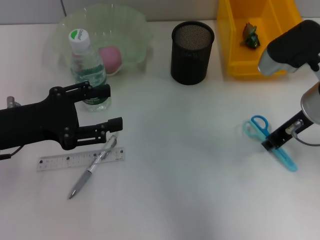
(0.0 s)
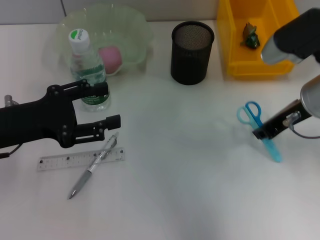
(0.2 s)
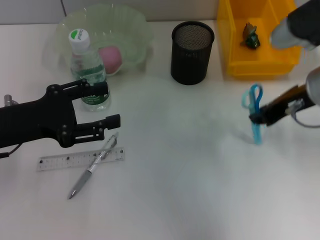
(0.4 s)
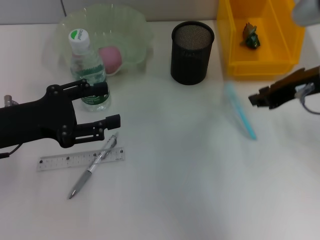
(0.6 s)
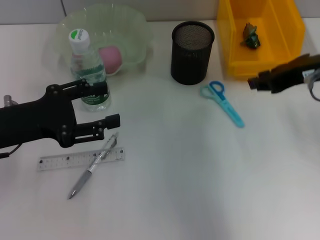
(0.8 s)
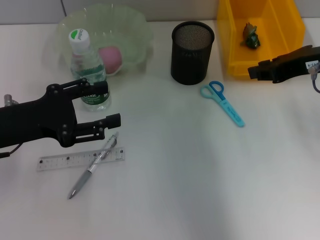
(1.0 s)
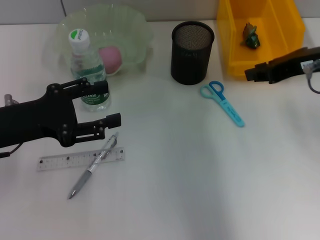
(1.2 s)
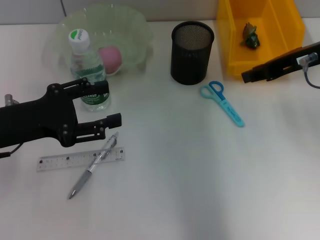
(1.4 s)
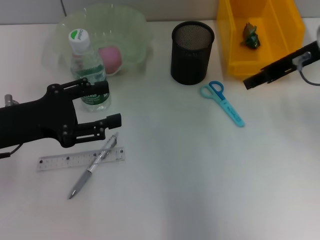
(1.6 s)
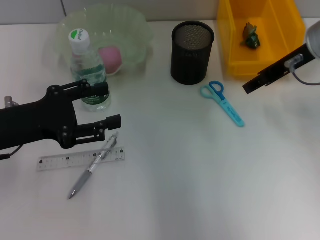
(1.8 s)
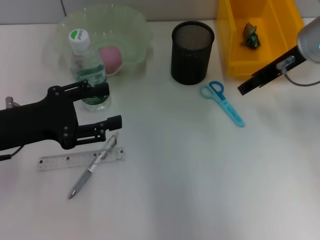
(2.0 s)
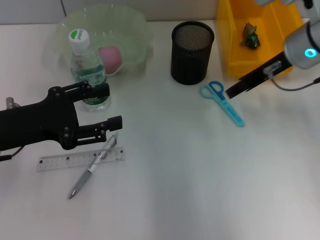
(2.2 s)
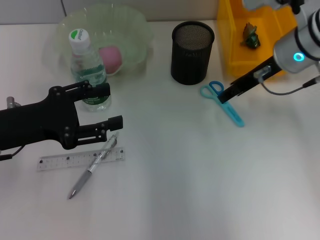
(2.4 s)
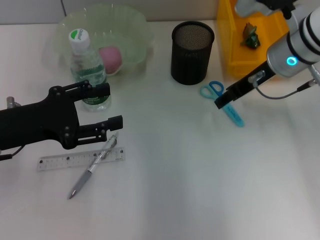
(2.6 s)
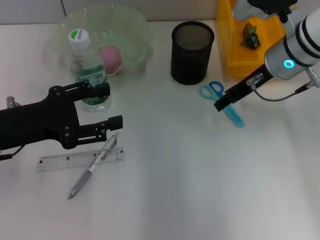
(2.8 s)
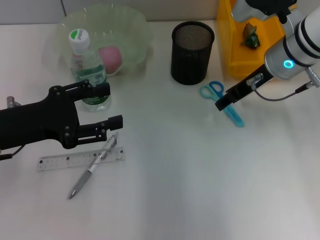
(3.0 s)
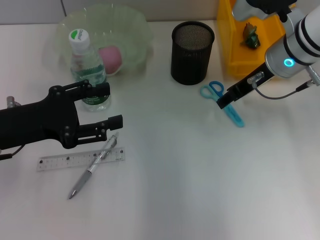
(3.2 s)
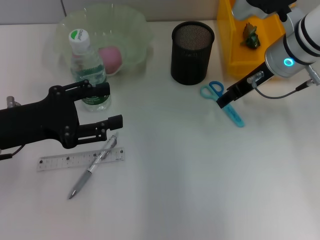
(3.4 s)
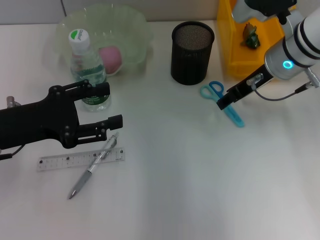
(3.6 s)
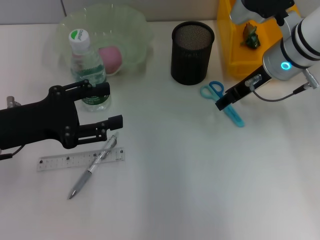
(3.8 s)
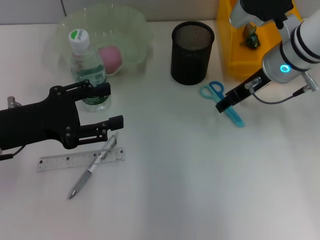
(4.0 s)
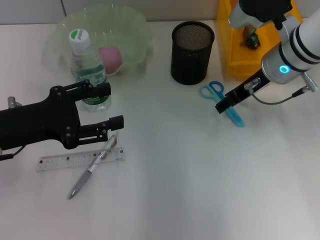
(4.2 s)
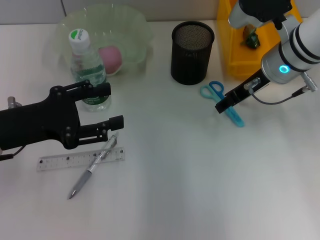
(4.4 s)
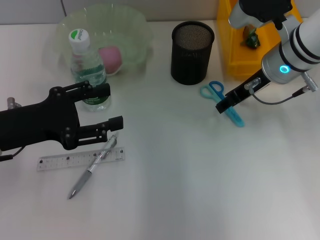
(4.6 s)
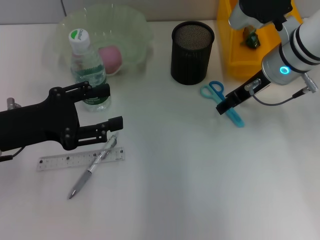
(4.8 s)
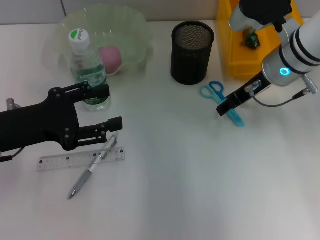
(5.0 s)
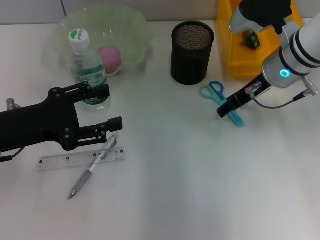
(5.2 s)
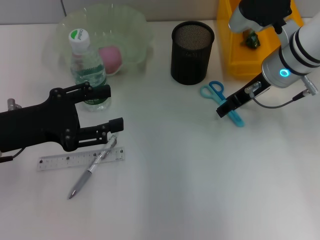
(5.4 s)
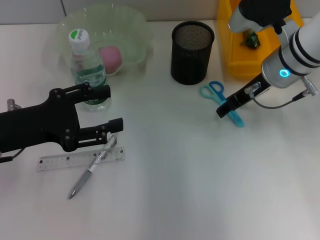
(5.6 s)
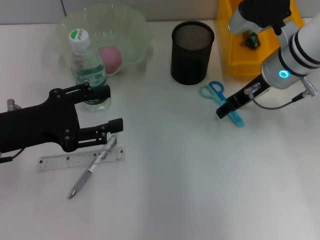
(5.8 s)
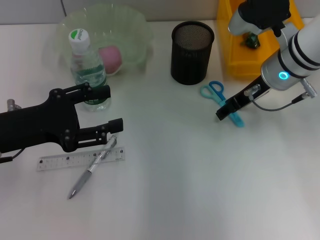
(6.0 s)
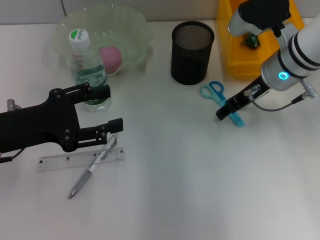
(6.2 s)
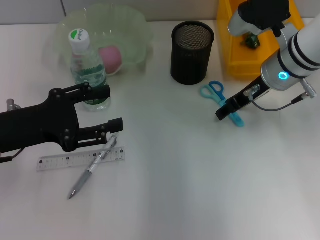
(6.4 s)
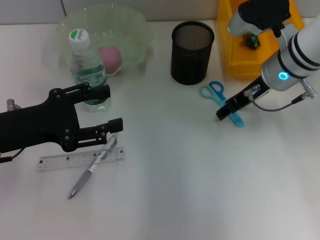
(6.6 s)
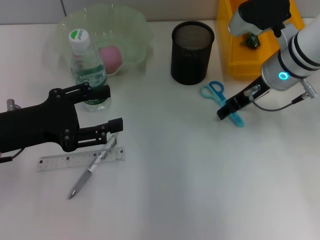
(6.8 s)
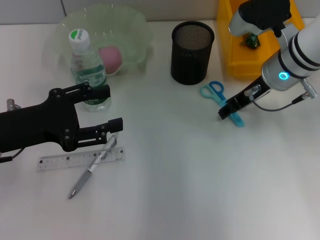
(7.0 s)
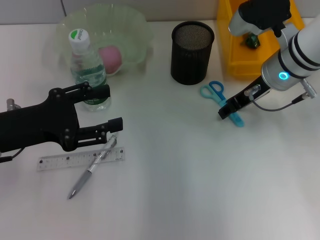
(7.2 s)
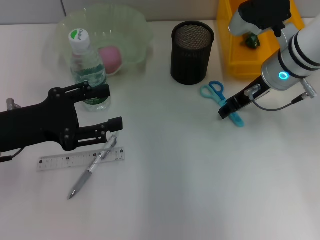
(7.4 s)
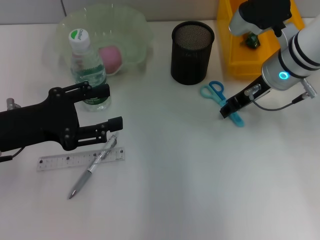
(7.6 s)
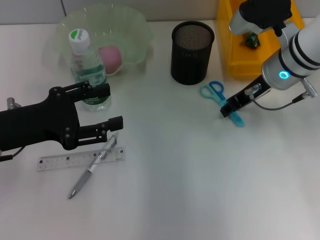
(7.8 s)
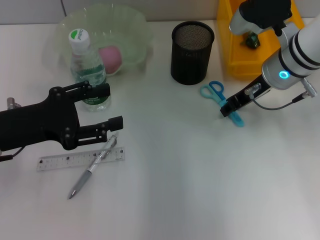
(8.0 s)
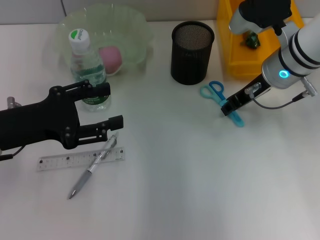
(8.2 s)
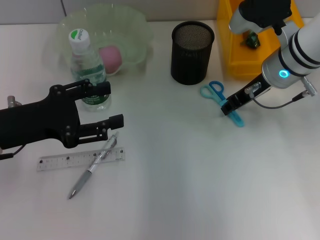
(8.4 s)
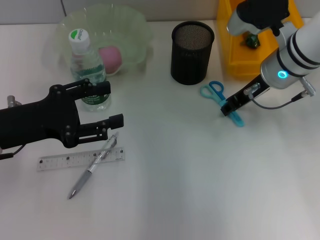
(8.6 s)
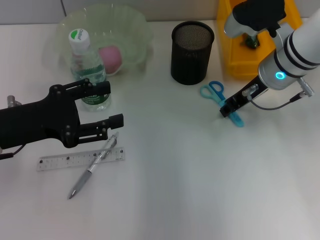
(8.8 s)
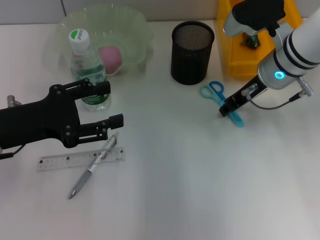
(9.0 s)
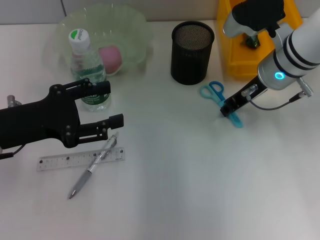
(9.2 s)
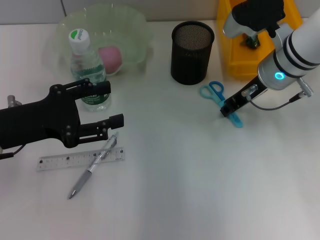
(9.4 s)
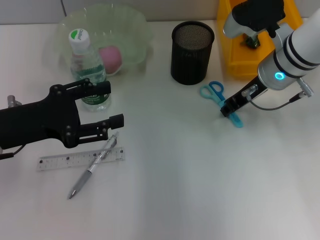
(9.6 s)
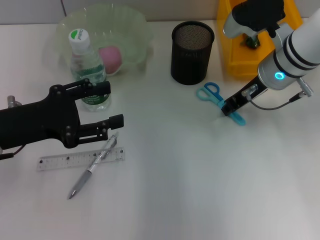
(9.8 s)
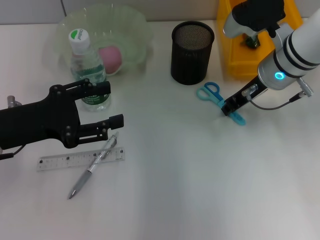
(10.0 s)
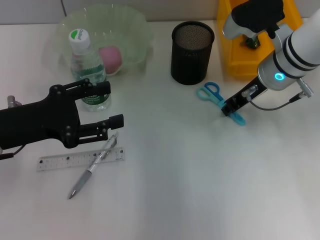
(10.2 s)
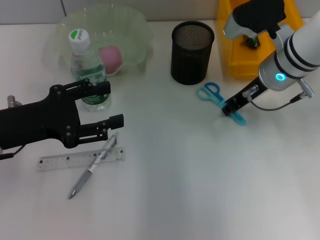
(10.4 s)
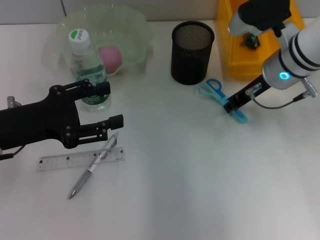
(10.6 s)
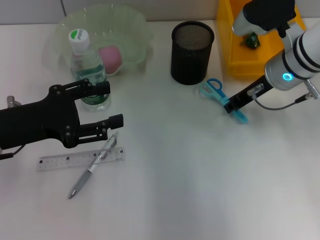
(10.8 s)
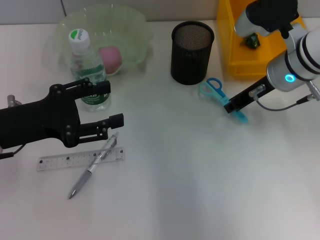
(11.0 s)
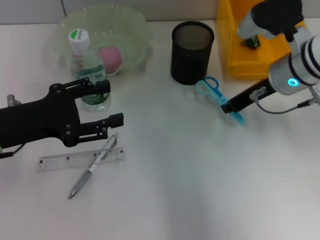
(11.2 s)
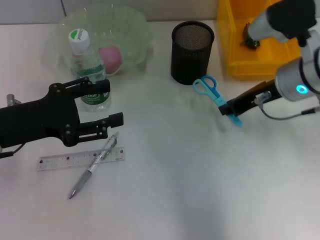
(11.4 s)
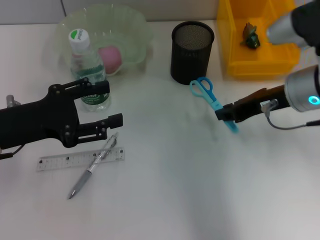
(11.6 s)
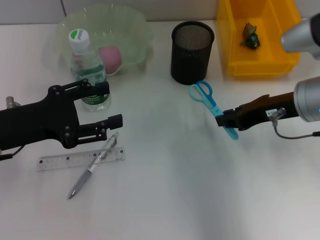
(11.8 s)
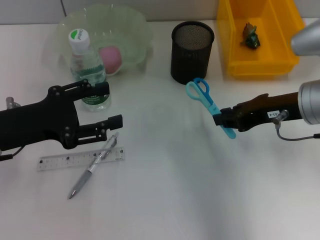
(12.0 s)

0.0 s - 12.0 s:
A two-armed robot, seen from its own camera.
Step, 0.0 s - 9.8 s: Grab the blue scissors with the right hand.
0.0 s - 1.6 s: The right gripper heads upward, covering roughly 5 cm.
1.6 s - 3.0 s: The right gripper moves downward and to the left, about 10 cm, and opens.
3.0 s - 4.4 s: Both grippers stay put.
4.4 s - 10.4 s: Both grippers stay put.
10.4 s - 12.0 s: The right gripper shifts roughly 10 cm backward.

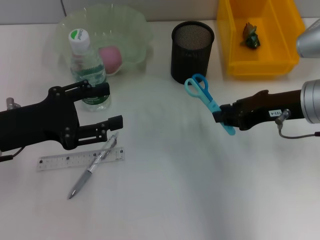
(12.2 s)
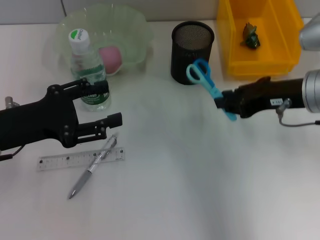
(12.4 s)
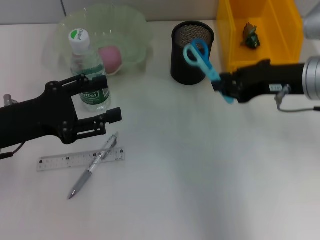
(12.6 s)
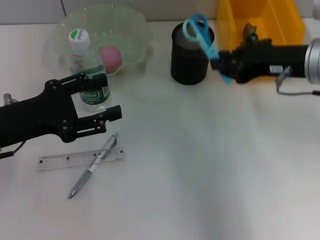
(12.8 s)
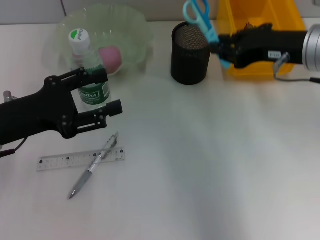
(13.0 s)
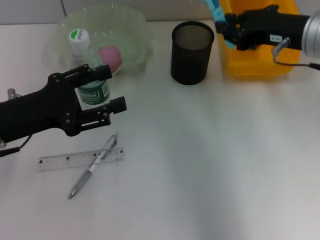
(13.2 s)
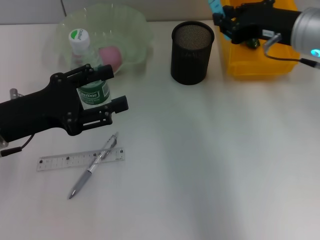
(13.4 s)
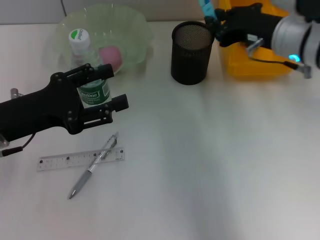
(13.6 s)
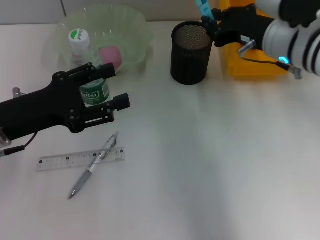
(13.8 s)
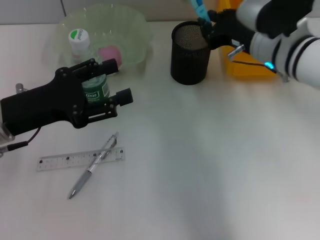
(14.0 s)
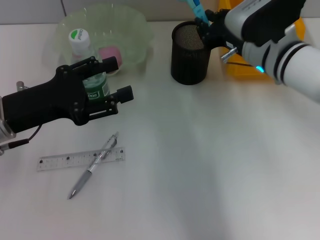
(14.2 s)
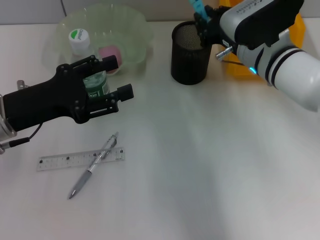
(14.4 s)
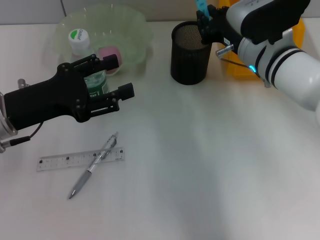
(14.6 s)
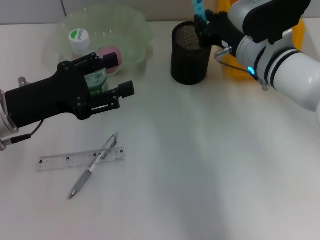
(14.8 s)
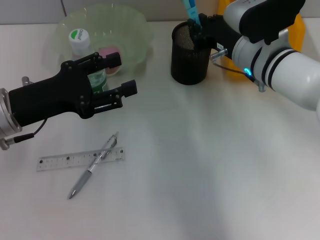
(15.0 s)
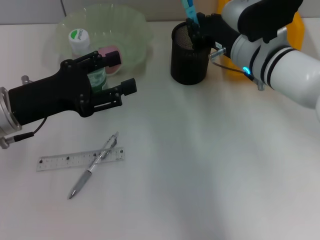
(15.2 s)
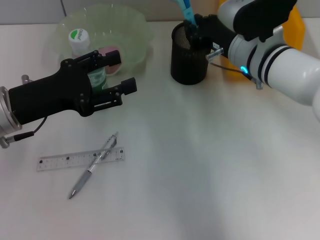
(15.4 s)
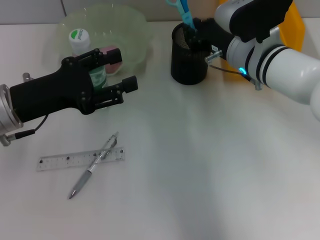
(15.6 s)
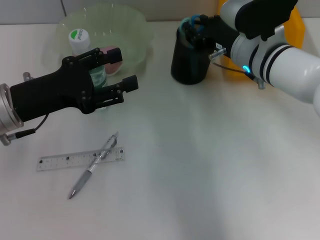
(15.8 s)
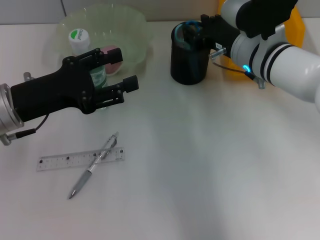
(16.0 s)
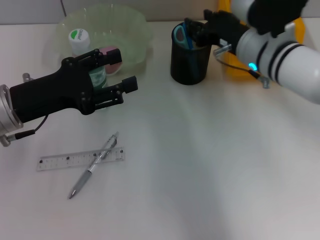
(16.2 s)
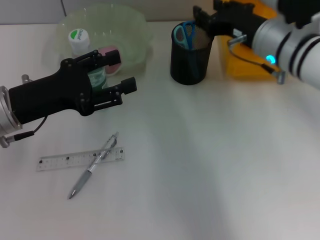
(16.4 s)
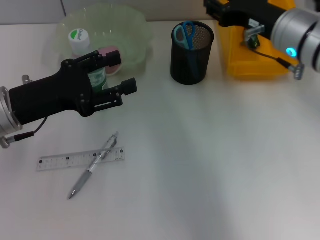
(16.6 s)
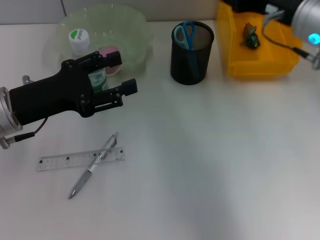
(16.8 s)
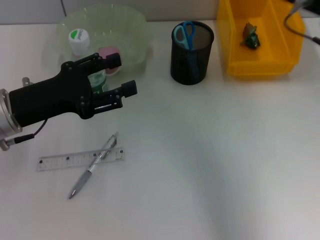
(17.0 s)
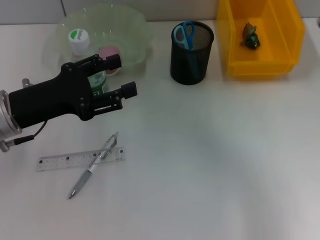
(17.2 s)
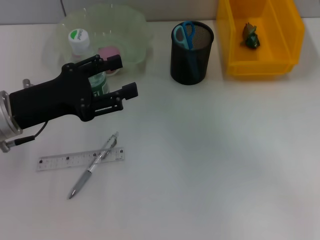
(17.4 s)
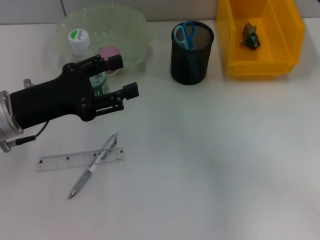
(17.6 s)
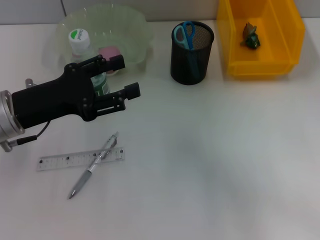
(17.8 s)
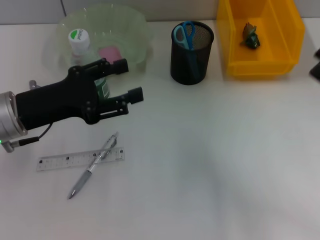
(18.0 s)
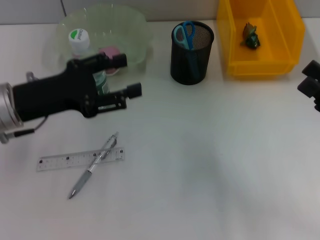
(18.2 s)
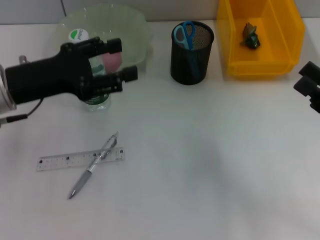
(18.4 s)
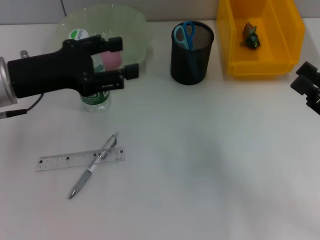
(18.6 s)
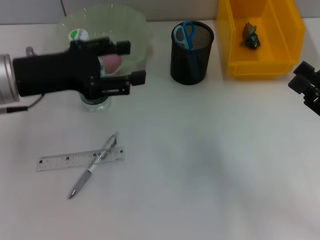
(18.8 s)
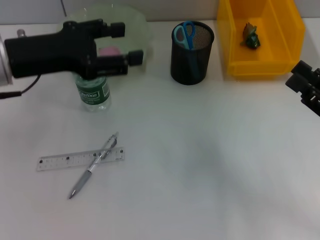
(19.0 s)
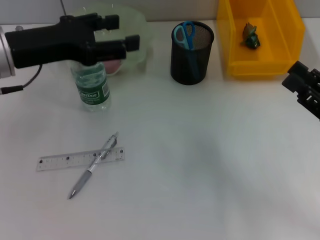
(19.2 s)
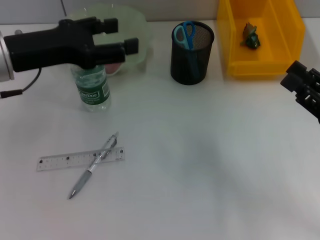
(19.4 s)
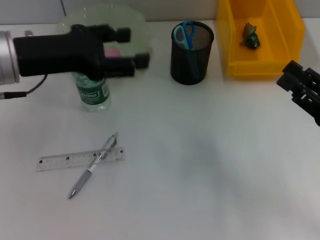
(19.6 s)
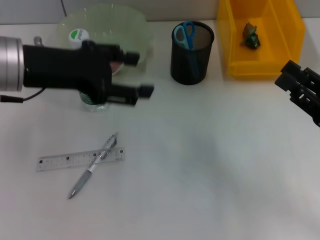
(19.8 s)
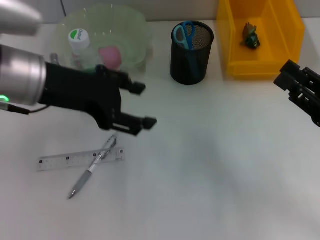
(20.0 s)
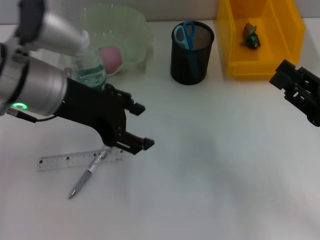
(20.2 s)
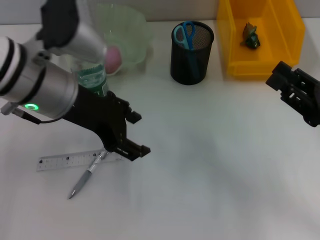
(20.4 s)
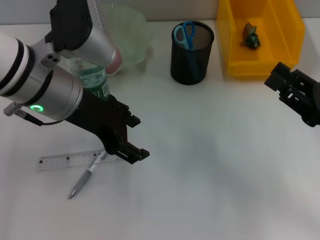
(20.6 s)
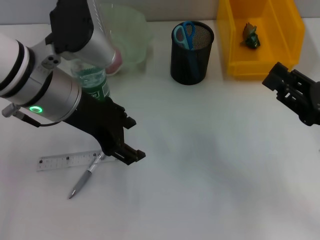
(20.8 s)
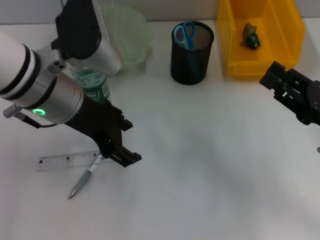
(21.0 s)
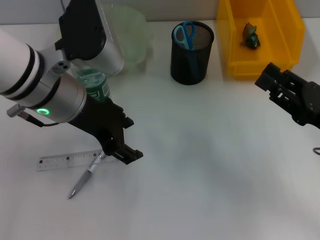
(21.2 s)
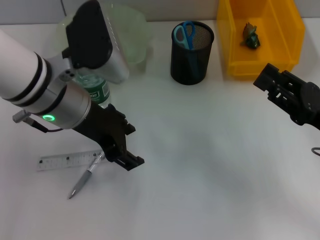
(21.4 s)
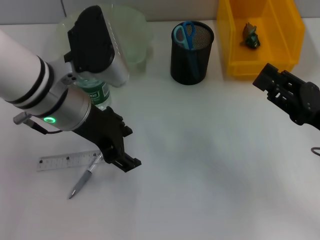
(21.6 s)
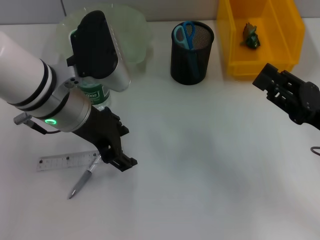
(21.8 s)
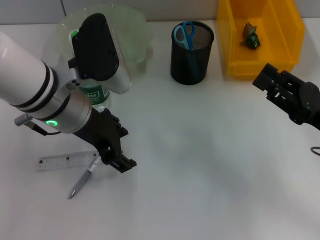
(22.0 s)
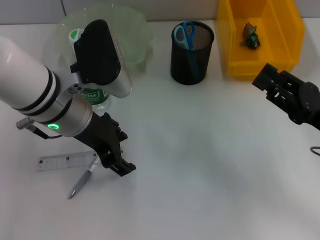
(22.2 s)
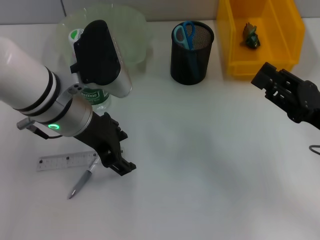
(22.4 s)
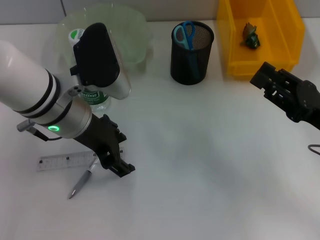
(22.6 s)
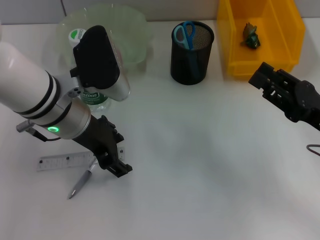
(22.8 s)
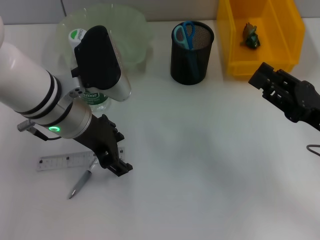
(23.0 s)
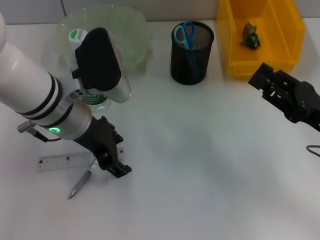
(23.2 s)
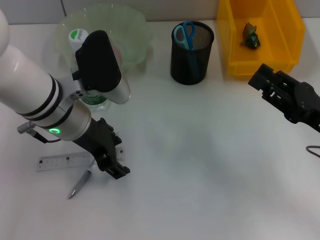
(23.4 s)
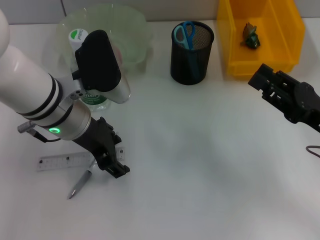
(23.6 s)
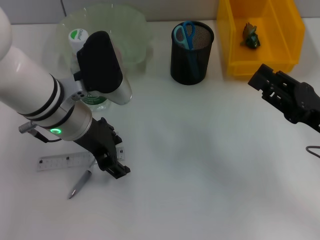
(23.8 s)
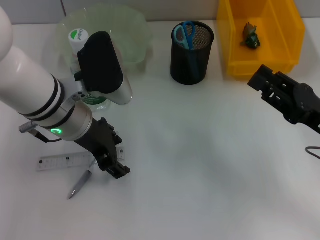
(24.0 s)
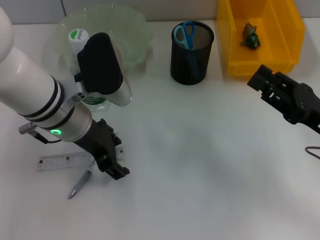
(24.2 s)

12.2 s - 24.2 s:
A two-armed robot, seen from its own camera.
Step, 12.2 s - 16.0 s: Place the blue scissors into the pen holder with the right hand.
12.2 s - 13.8 s: The right gripper goes some 5 cm forward.
13.8 s - 15.2 s: The right gripper shifts by approximately 5 cm.
15.2 s - 16.6 s: The right gripper is displaced upward by approximately 5 cm, and opens.
16.6 s - 18.2 s: The right gripper shifts some 20 cm to the right, backward and downward.
18.2 s - 19.8 s: The left gripper is displaced upward by approximately 10 cm.
19.8 s - 21.2 s: The left gripper shifts roughly 5 cm to the right.
21.2 s - 22.6 s: The grippers stay close to where they were, moving slightly.
22.6 s - 24.2 s: Both grippers stay put.
